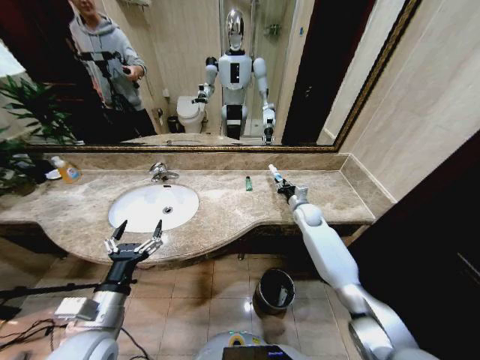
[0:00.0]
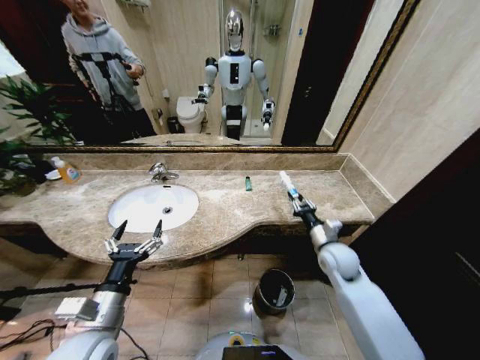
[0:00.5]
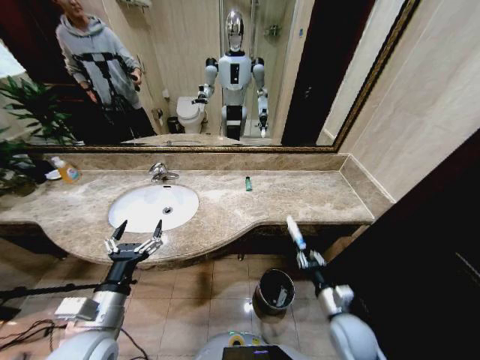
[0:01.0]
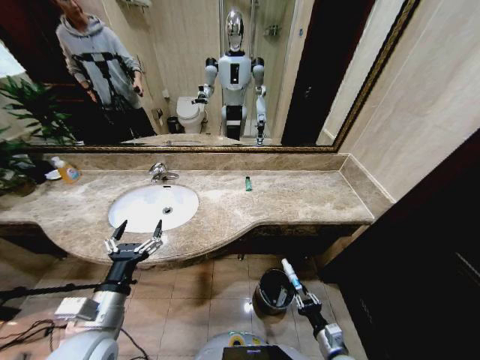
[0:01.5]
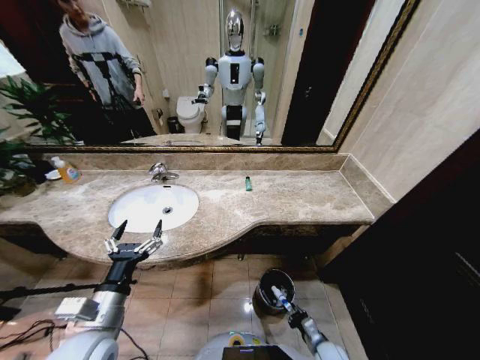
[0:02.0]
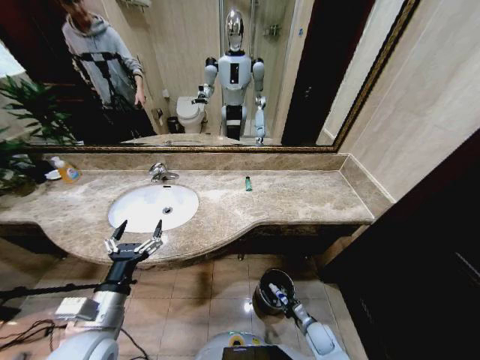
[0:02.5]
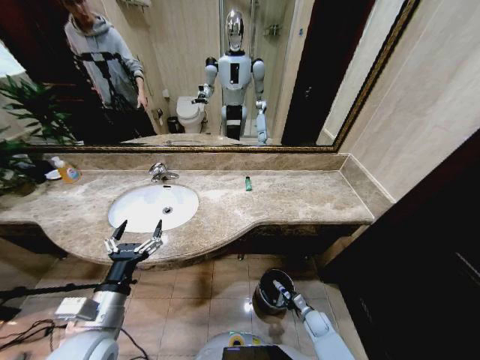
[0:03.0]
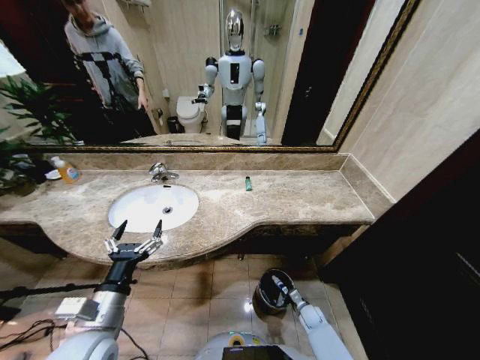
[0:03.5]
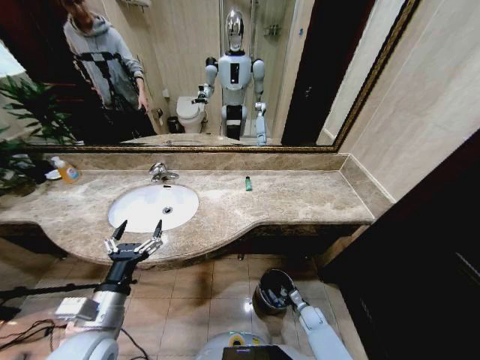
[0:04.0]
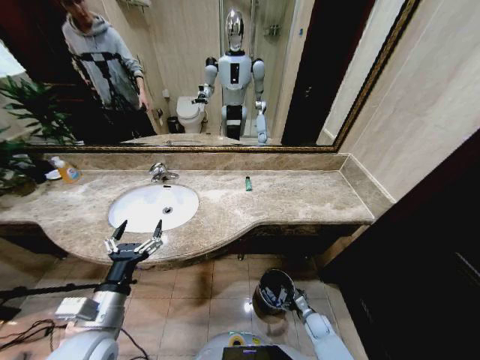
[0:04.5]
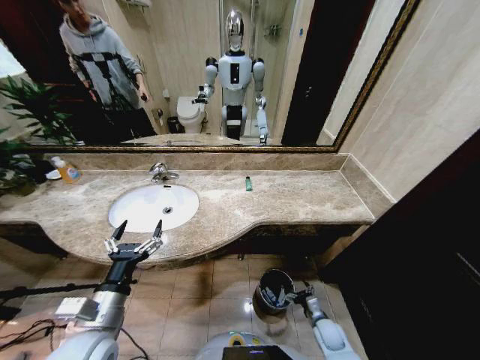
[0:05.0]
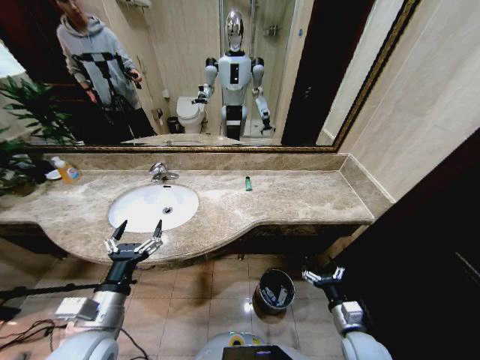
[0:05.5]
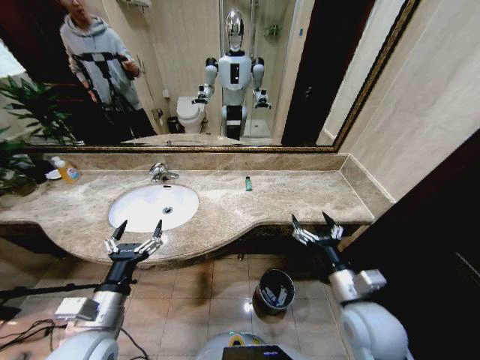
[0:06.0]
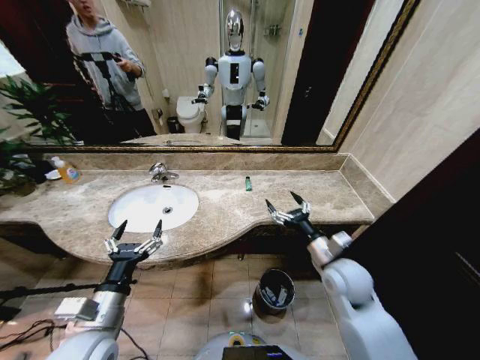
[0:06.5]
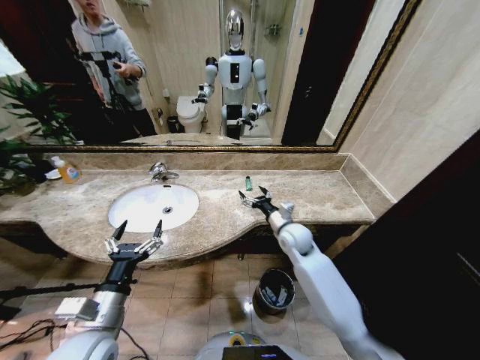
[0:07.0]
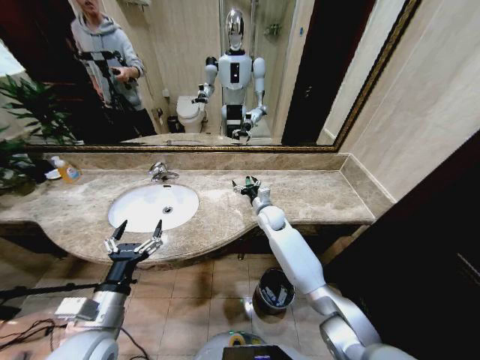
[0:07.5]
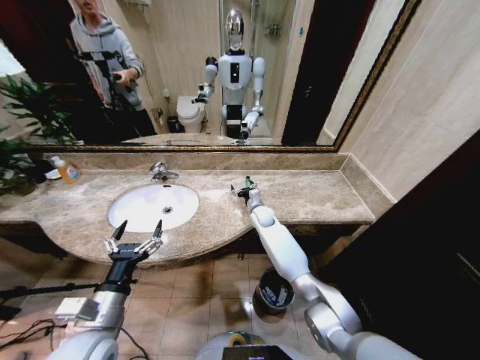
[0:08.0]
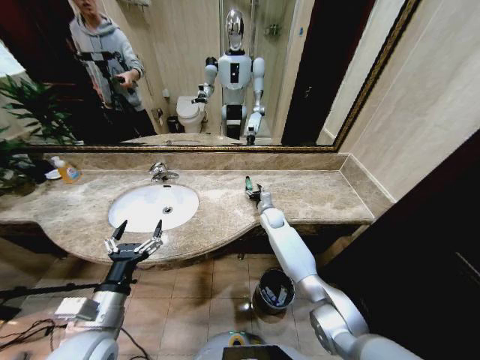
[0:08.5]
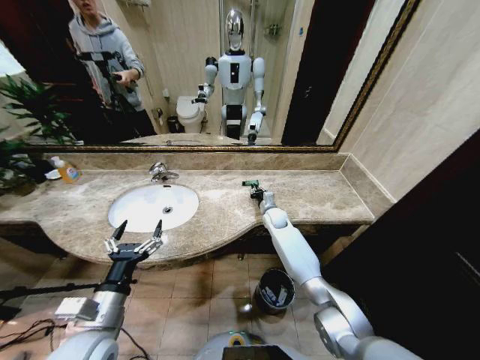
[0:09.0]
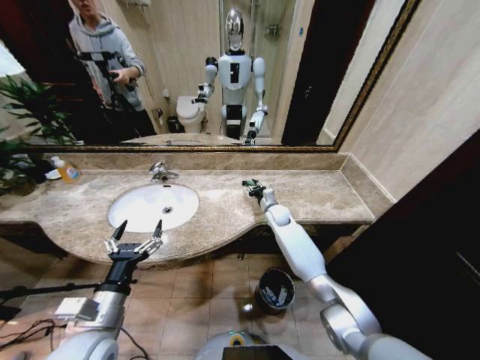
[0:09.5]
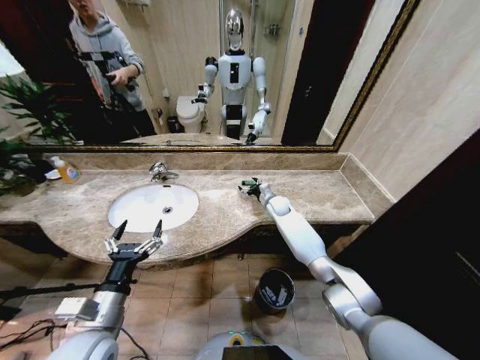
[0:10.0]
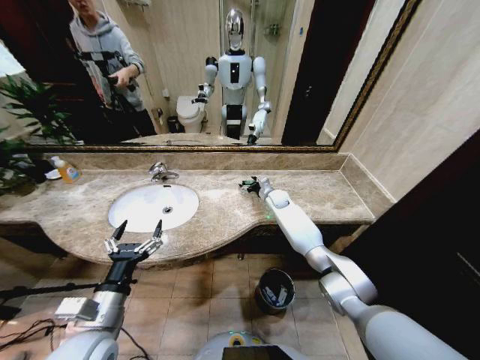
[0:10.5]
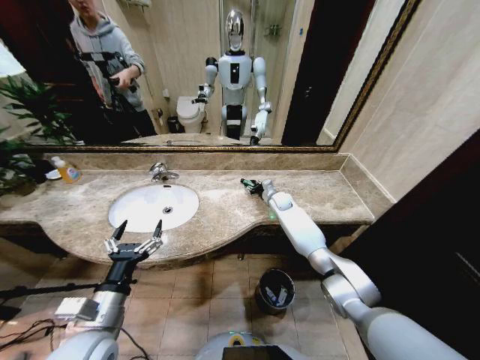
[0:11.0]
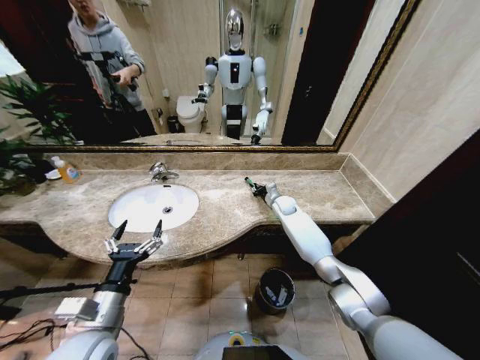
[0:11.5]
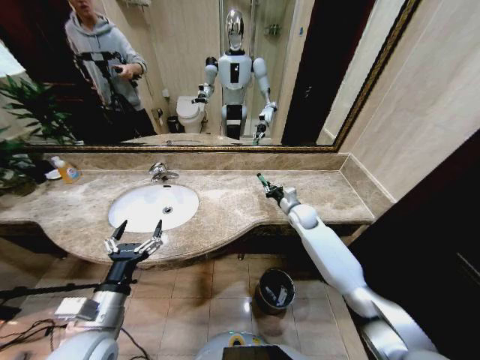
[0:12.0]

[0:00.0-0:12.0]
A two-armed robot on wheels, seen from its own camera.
Task of the whole recording: Pick up the trash from the sink and place it in the trash bin.
0:00.0 to 0:02.0: The right gripper is displaced backward and downward by roughly 50 cm.
0:02.0 to 0:04.0: The right gripper shifts about 15 cm forward and downward.
0:04.0 to 0:06.0: The right gripper shifts about 40 cm upward, and opens its fingers.
0:06.0 to 0:08.0: The right gripper shifts about 35 cm forward.
0:08.0 to 0:10.0: The right gripper is displaced to the right by some 5 cm, and closes and opens again.
0:10.0 to 0:12.0: The right gripper heads backward and to the right, covering roughly 10 cm, and closes.

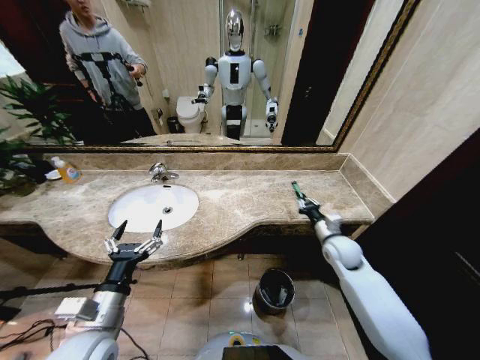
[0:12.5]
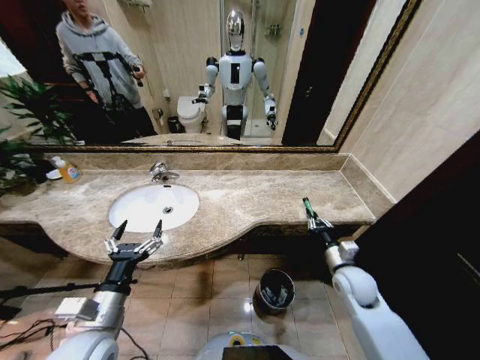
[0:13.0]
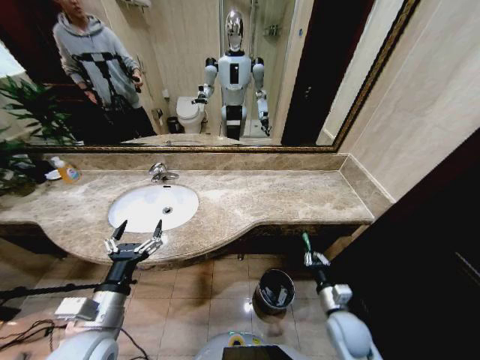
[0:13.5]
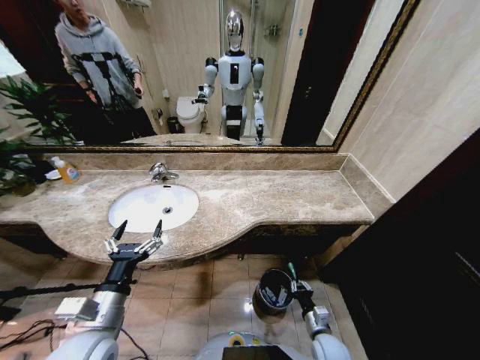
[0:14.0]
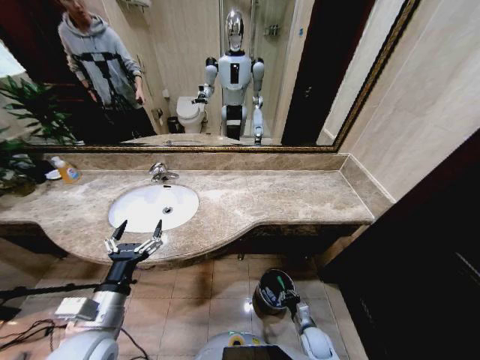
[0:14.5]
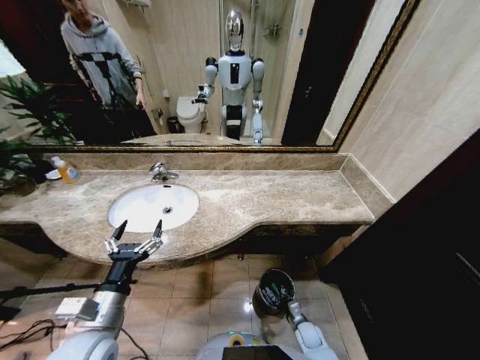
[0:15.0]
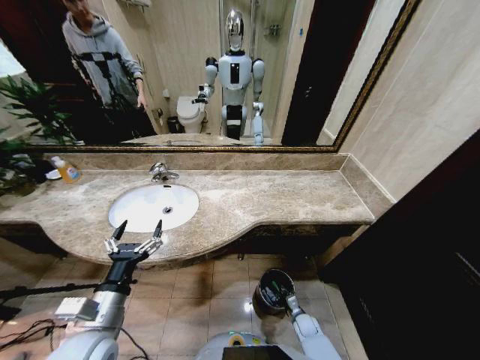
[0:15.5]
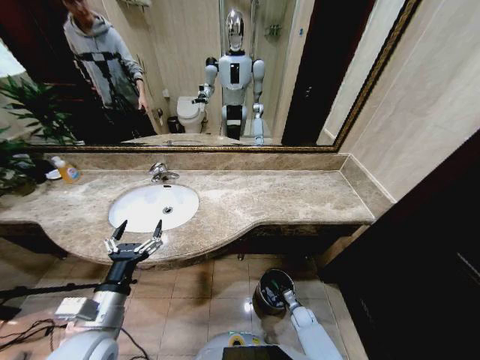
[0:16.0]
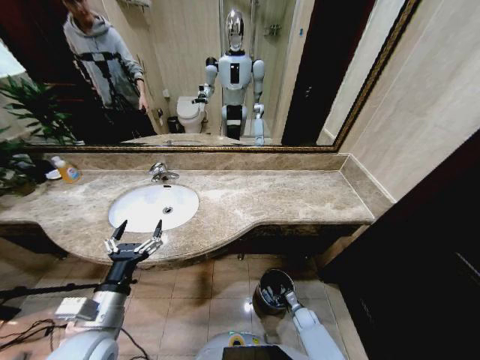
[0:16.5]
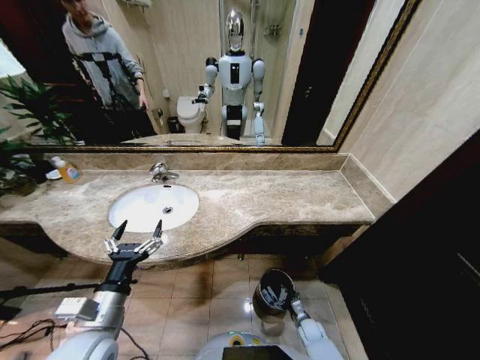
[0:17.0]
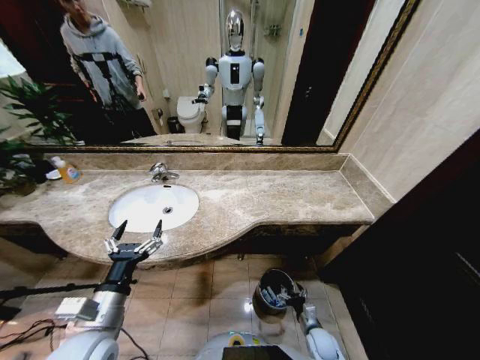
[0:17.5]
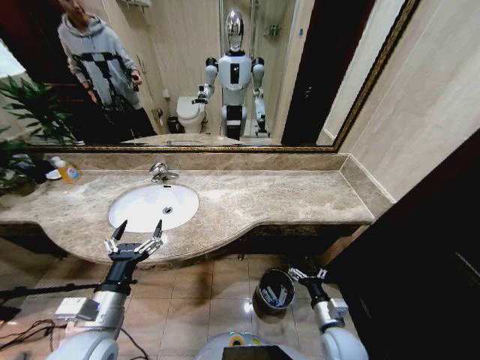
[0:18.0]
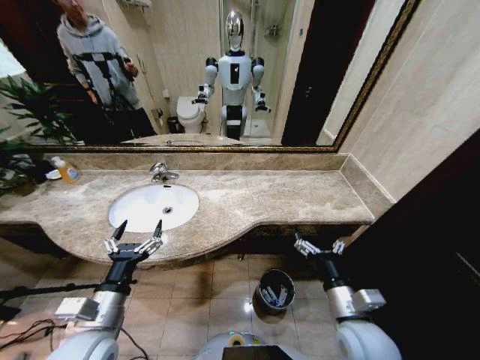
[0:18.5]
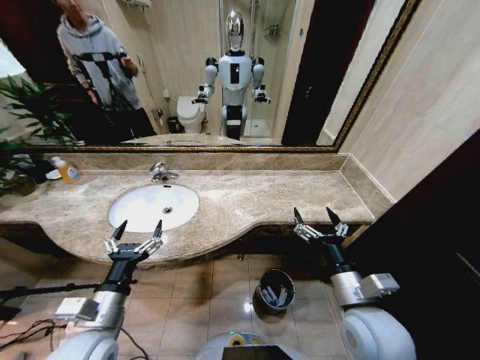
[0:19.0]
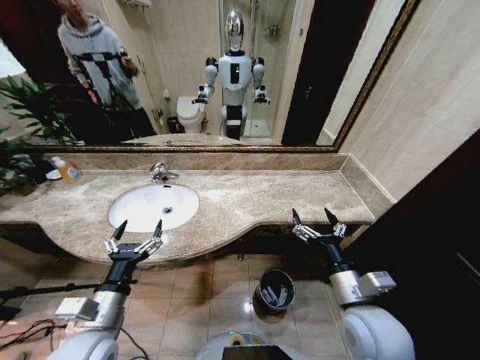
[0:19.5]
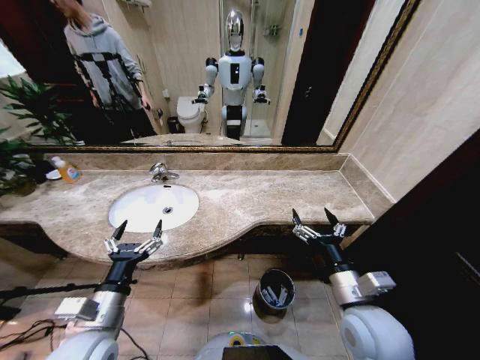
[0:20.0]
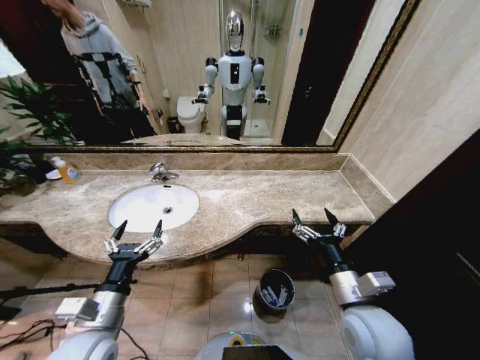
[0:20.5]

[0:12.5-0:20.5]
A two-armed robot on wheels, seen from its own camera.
Task of the whole recording: Pick up the trash from the sink and place it in the trash bin.
0:12.5 to 0:14.5: The right gripper heads downward and backward, covering approximately 35 cm.
0:14.5 to 0:16.5: The right gripper is displaced downward and forward by approximately 10 cm, and opens its fingers.
0:16.5 to 0:18.5: The right gripper goes some 40 cm upward.
0:18.5 to 0:20.5: The right gripper is displaced upward by roughly 5 cm.

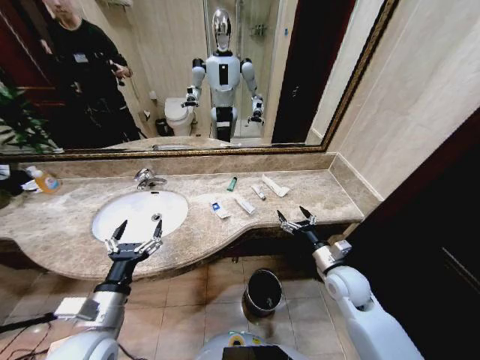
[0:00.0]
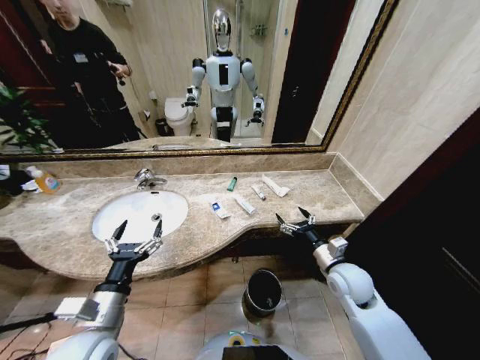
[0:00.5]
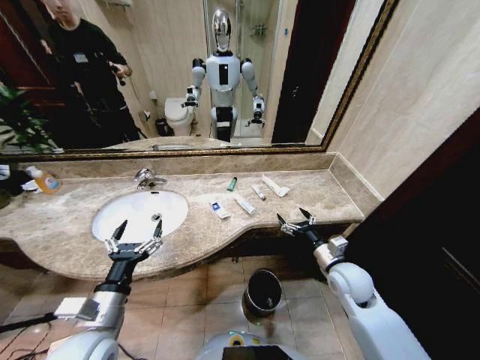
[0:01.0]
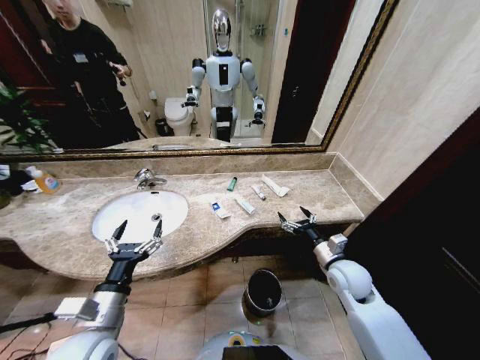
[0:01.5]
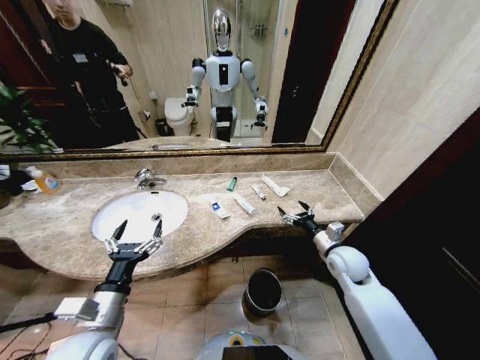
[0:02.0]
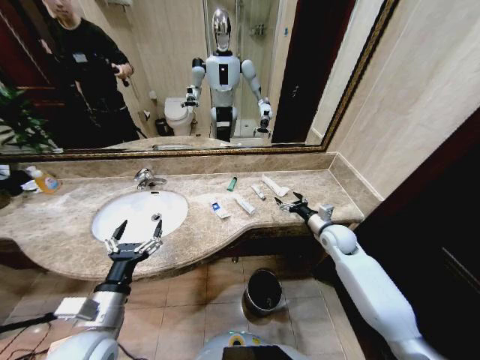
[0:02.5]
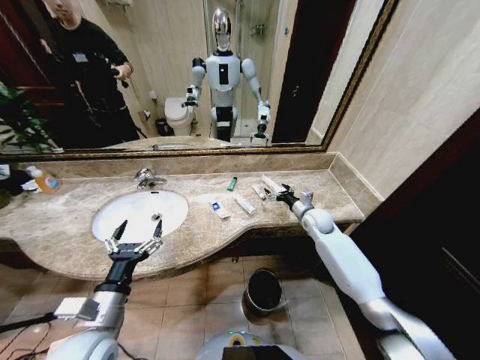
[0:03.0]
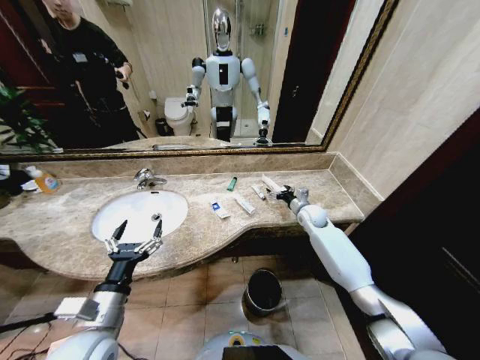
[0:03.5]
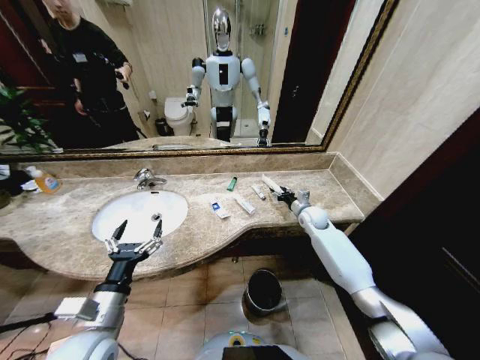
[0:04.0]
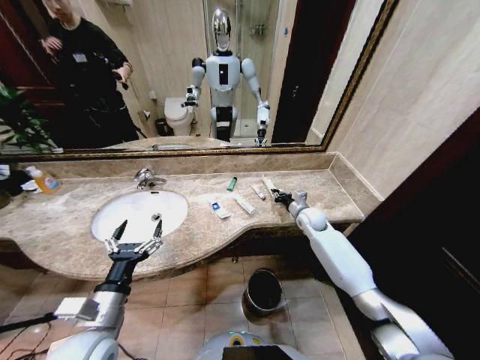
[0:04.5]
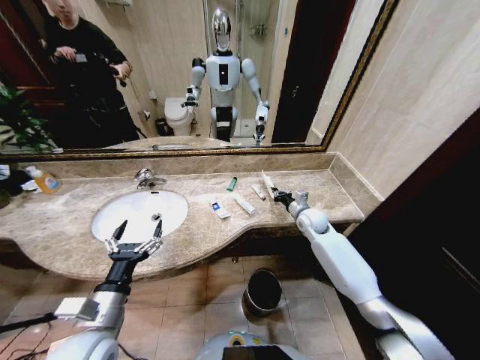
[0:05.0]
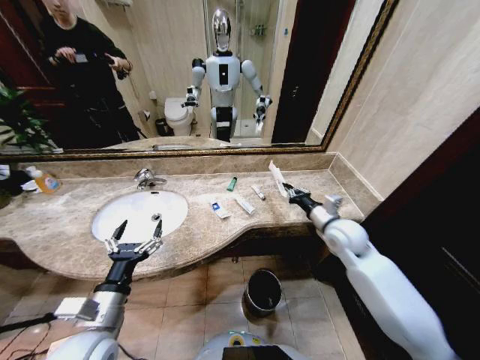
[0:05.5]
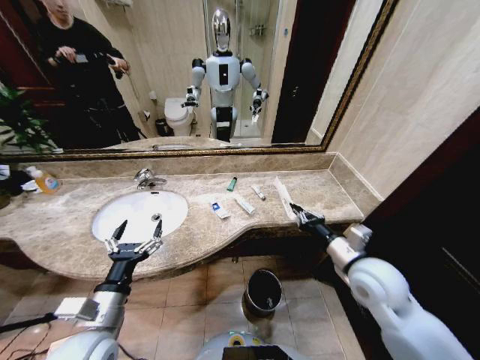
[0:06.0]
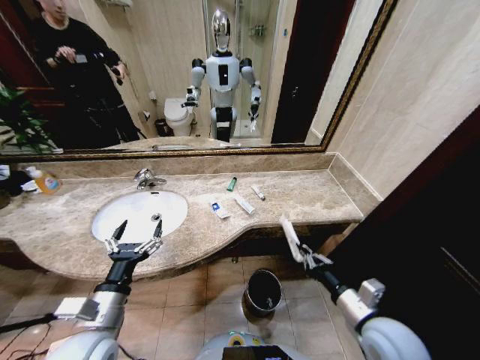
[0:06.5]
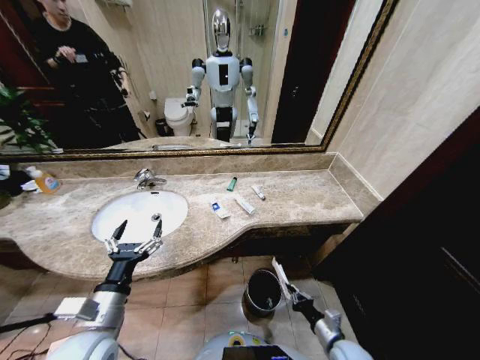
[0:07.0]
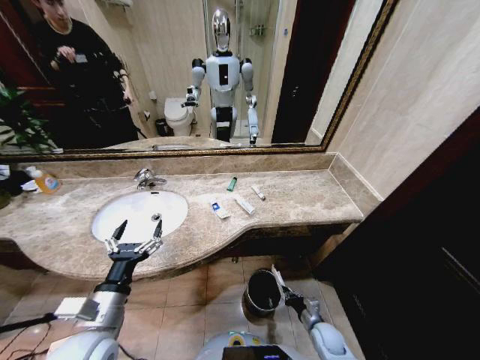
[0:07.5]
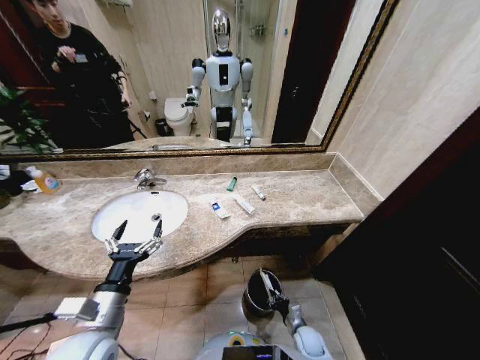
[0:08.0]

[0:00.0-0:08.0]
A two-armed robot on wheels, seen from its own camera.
Task of the whole recording: Pick up the trash from the sink and place it in the trash bin.
0:02.0 to 0:04.0: The right gripper shifts some 20 cm forward.
0:04.0 to 0:06.0: The right gripper travels backward by approximately 25 cm, and closes.
0:06.0 to 0:08.0: The right gripper travels downward by roughly 40 cm.
